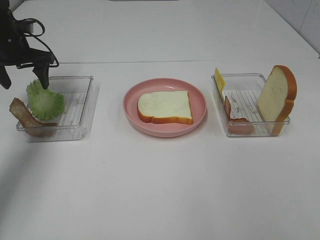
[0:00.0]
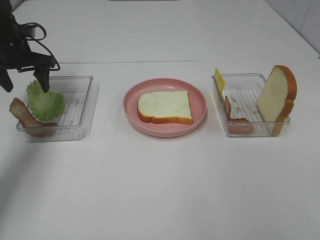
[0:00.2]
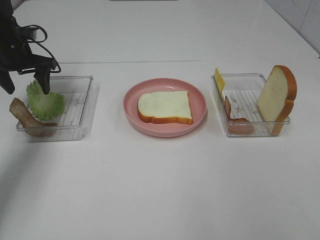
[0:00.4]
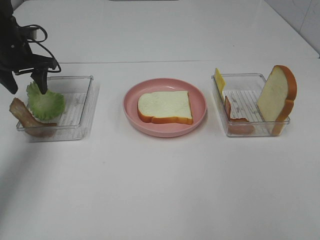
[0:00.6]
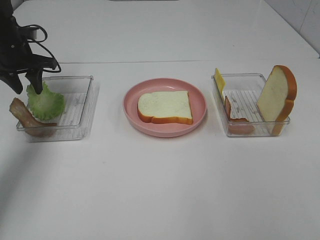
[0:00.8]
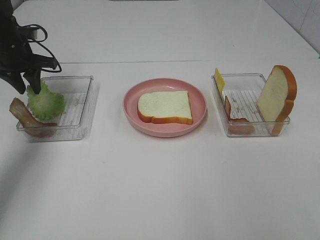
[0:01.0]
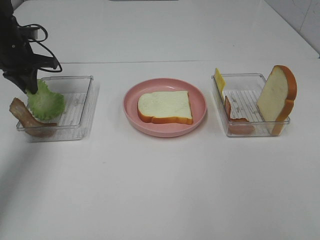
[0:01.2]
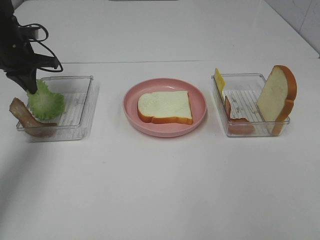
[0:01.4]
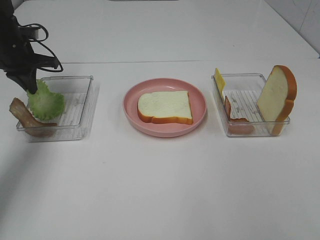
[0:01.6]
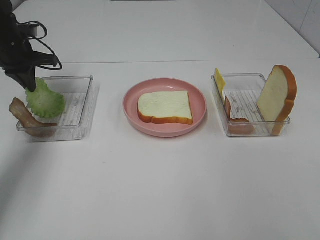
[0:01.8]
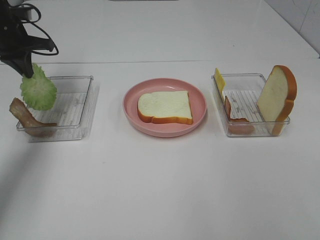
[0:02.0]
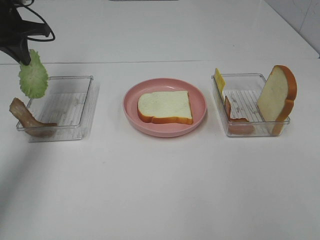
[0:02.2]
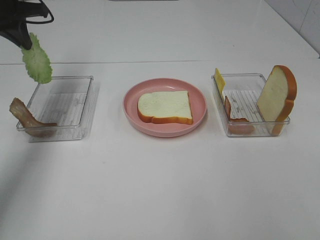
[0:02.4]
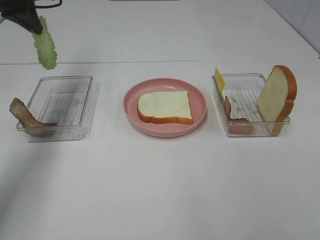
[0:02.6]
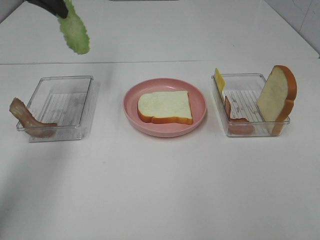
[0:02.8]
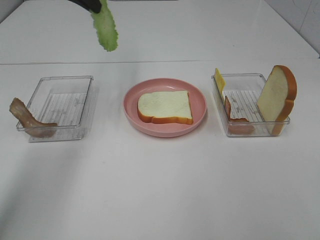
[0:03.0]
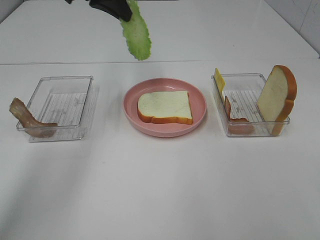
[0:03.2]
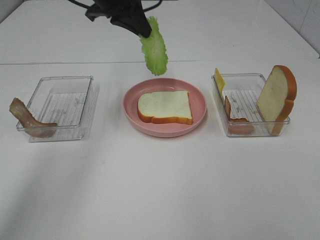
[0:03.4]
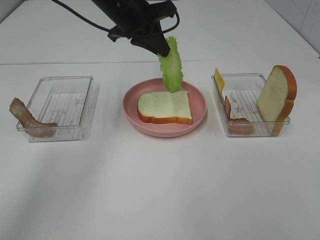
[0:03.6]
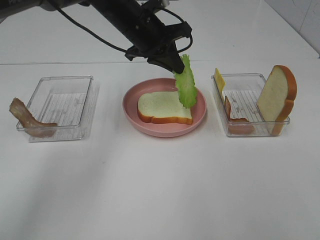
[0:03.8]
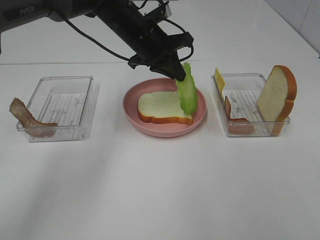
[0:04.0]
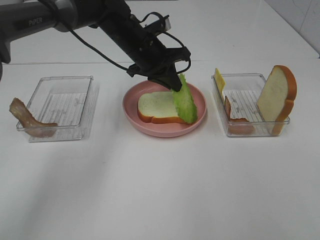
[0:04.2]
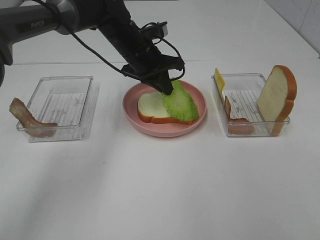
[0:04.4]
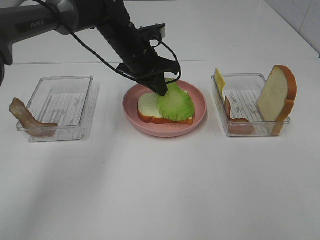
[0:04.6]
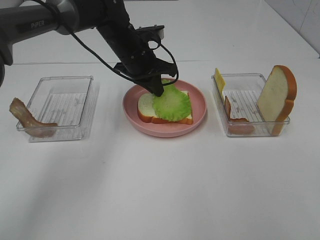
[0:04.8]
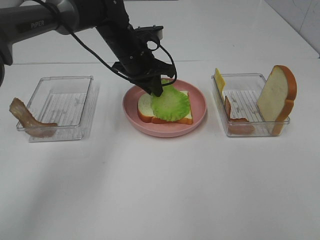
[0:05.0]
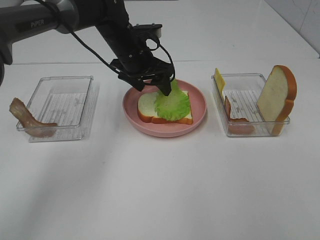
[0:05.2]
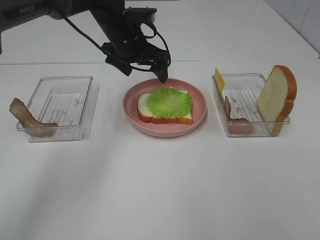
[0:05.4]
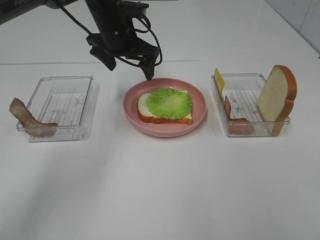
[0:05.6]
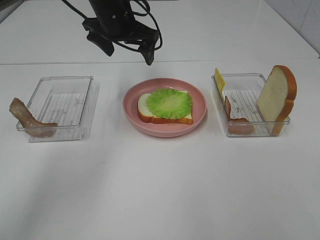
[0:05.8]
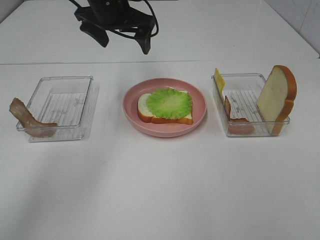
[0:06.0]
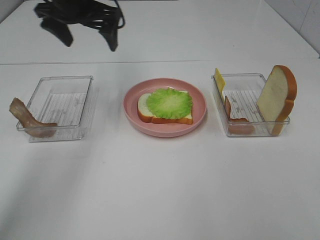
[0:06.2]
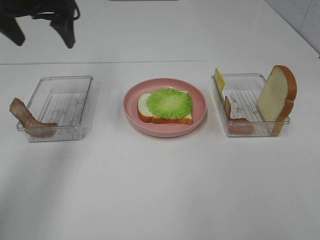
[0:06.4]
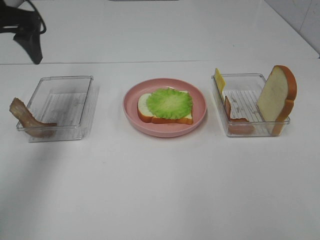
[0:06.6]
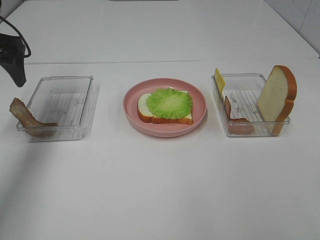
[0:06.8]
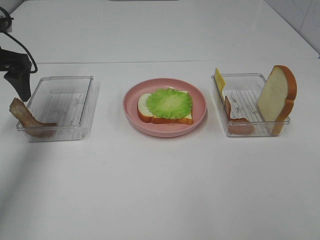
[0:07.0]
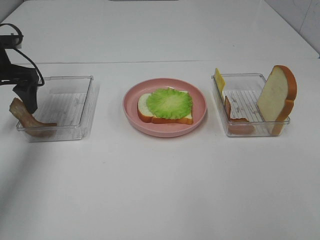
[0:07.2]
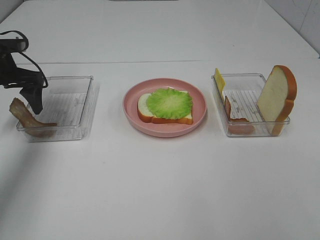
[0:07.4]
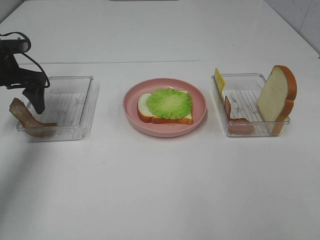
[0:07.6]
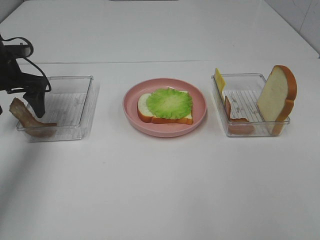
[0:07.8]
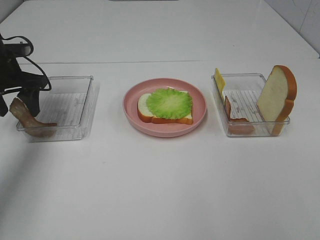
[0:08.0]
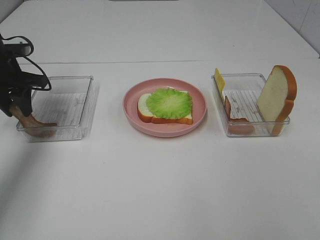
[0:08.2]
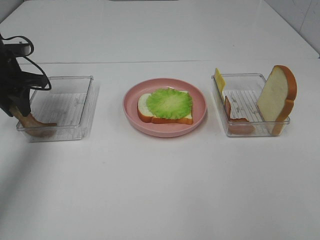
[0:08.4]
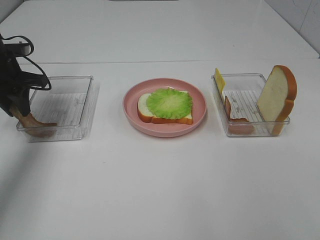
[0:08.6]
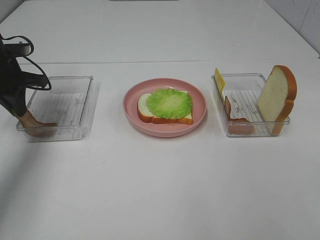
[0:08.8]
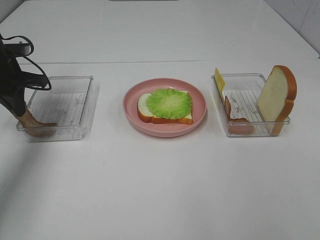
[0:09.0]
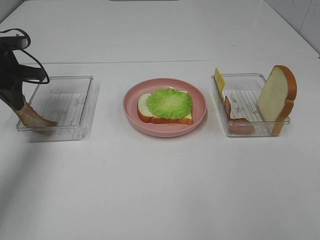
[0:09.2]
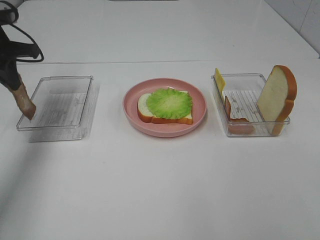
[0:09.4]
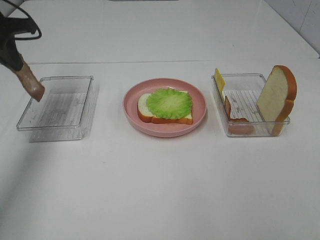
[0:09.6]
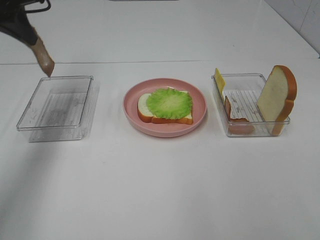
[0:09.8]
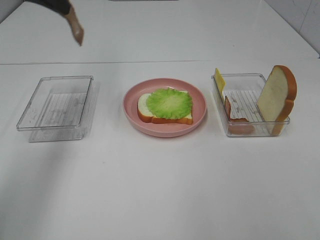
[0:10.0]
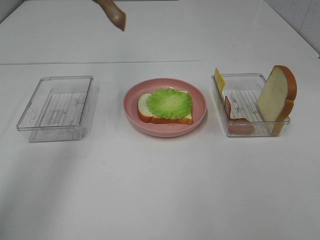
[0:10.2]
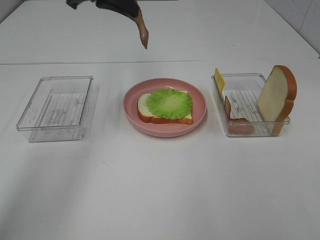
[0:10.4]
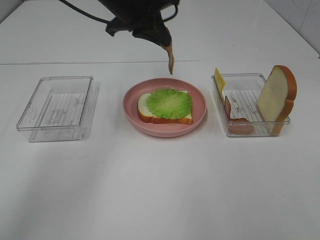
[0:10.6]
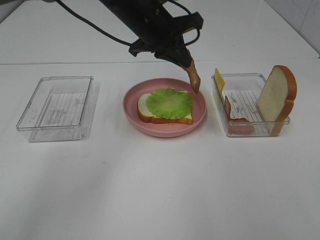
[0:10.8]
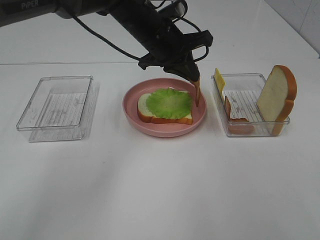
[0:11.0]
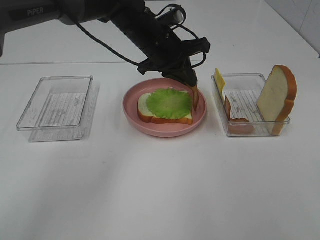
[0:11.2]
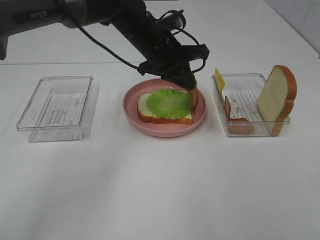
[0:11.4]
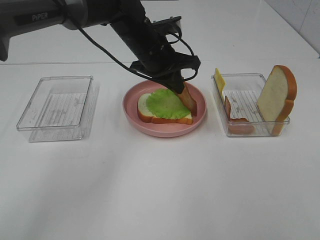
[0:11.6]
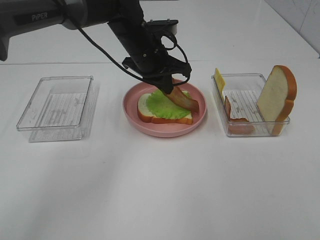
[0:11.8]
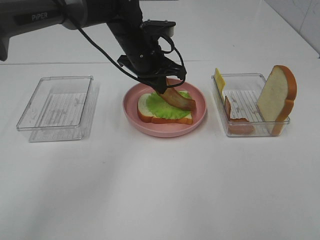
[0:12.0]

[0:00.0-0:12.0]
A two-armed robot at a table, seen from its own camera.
Task of the whole recording: Make sandwiches.
Step, 0:01.8 to 0:05.4: Left hand:place the lettuce slice on the bread slice.
Step, 0:05.6 to 0:09.2: Left hand:grab the bacon.
0:00.0 to 0:01.6: The left gripper closes its fingers.
0:01.6 to 0:03.0: The left gripper heads upward and to the right, covering some 20 cm.
0:03.0 to 0:04.4: The left gripper is displaced downward and to the right by approximately 20 cm.
0:04.4 to 0:06.0: The left gripper goes about 10 cm upward and to the left, and opens up.
0:06.0 to 0:07.6: The left gripper shifts roughly 25 cm to the left and downward.
0:07.6 to 0:09.0: The left gripper closes up.
0:09.0 to 0:10.4: The left gripper goes roughly 25 cm to the right and upward.
0:10.4 to 0:12.0: The left gripper shifts about 15 cm downward and to the right.

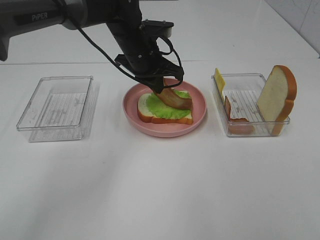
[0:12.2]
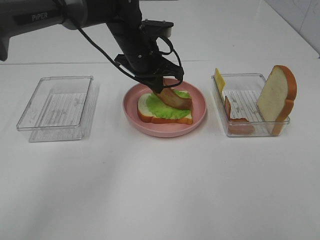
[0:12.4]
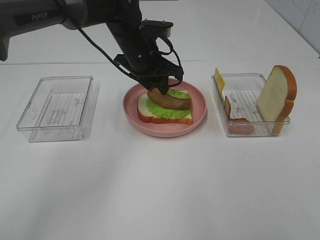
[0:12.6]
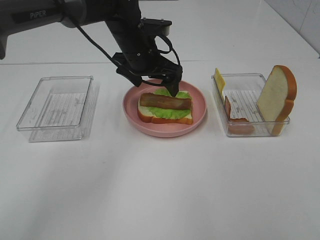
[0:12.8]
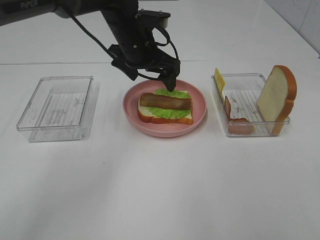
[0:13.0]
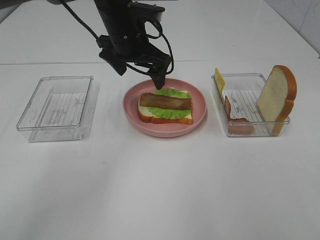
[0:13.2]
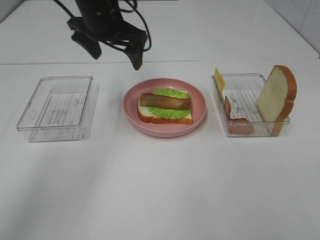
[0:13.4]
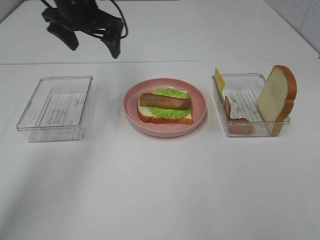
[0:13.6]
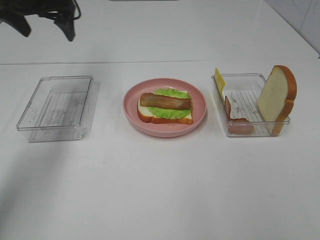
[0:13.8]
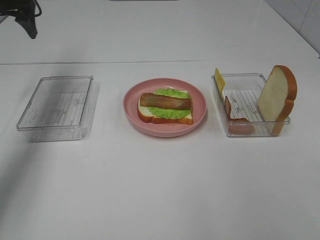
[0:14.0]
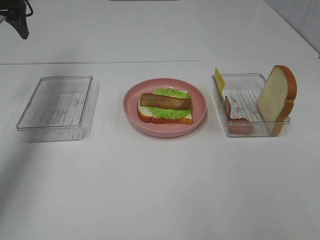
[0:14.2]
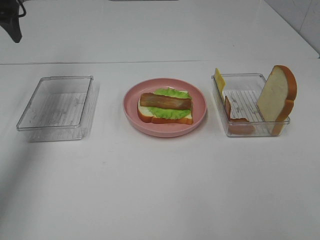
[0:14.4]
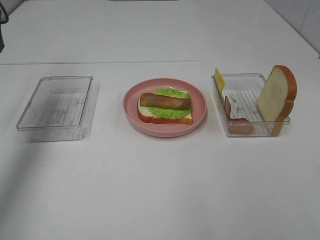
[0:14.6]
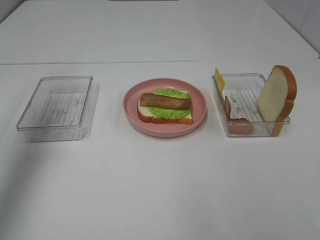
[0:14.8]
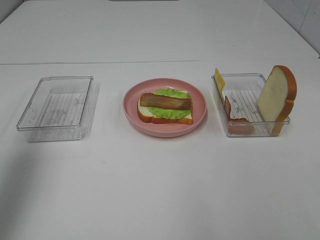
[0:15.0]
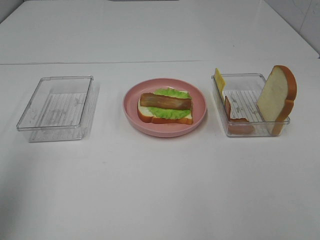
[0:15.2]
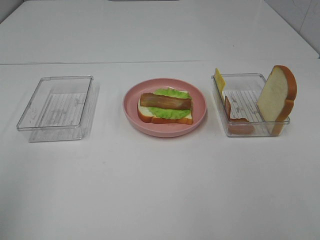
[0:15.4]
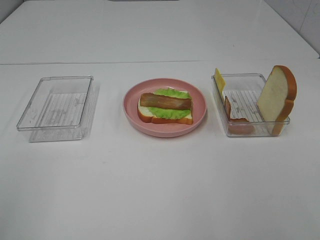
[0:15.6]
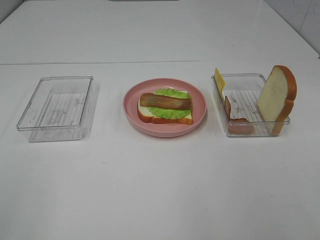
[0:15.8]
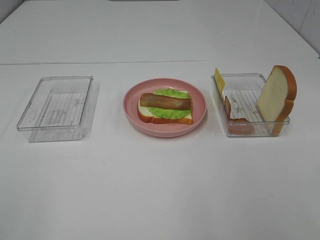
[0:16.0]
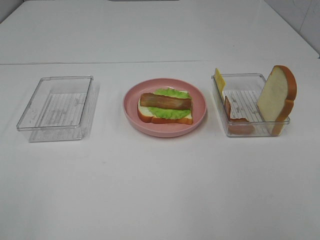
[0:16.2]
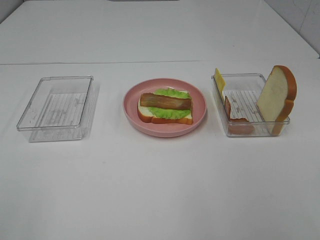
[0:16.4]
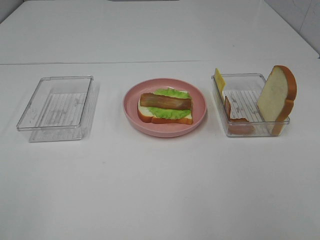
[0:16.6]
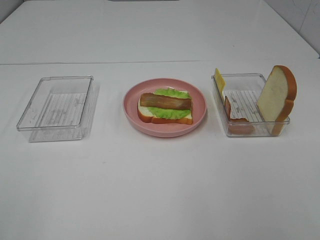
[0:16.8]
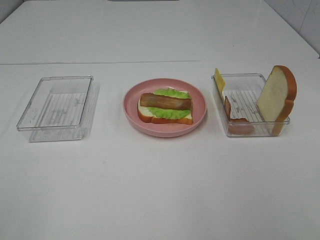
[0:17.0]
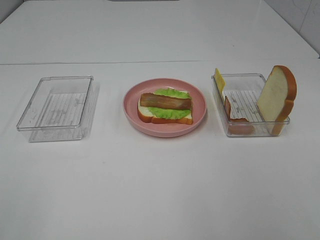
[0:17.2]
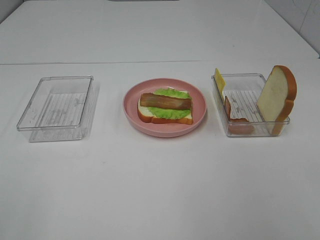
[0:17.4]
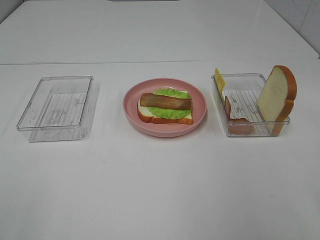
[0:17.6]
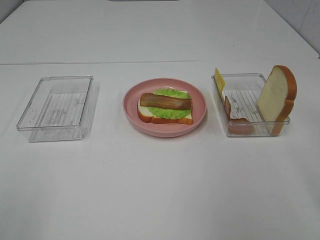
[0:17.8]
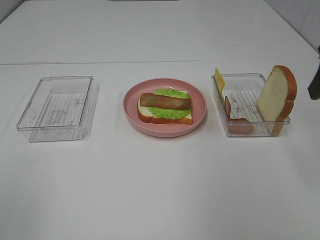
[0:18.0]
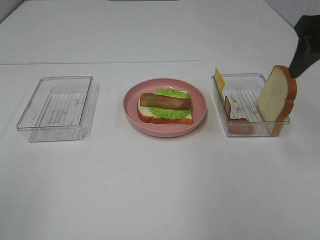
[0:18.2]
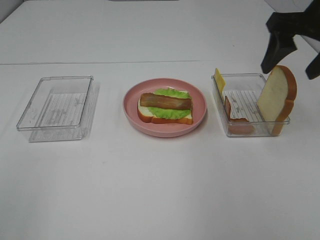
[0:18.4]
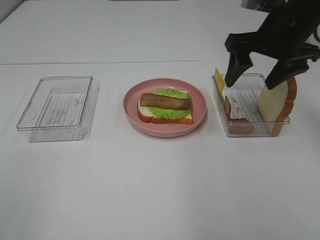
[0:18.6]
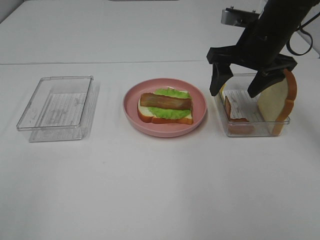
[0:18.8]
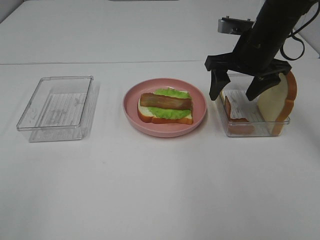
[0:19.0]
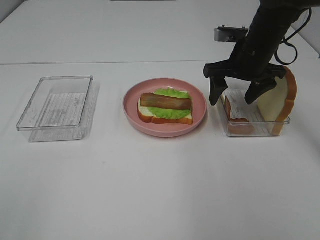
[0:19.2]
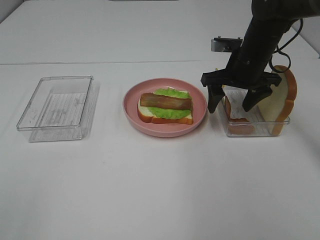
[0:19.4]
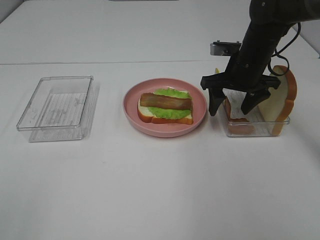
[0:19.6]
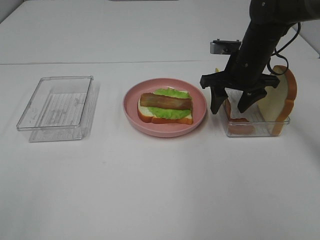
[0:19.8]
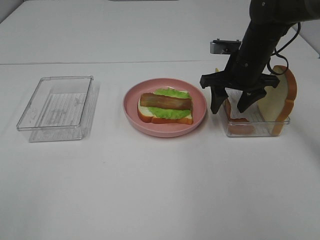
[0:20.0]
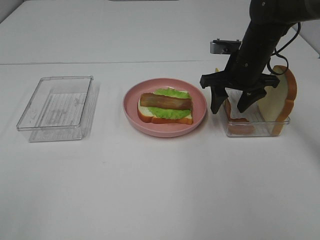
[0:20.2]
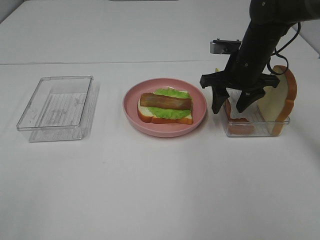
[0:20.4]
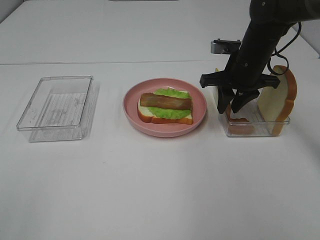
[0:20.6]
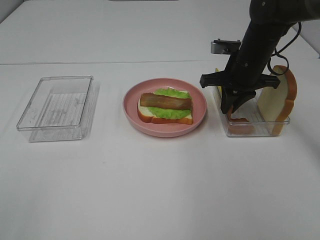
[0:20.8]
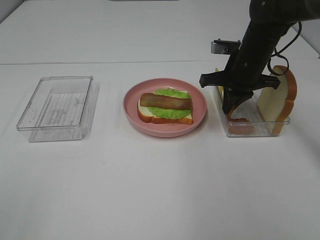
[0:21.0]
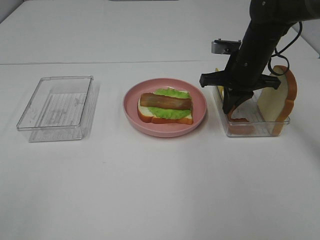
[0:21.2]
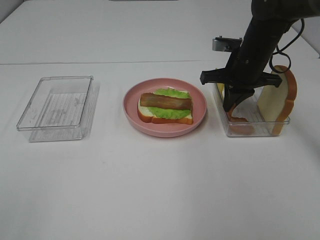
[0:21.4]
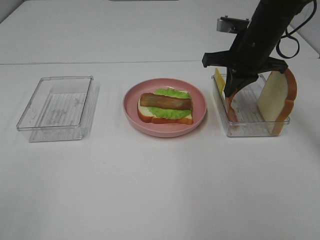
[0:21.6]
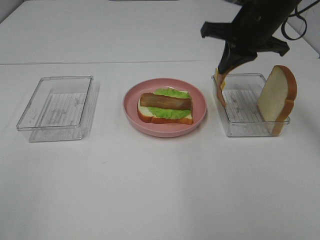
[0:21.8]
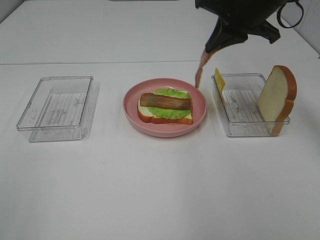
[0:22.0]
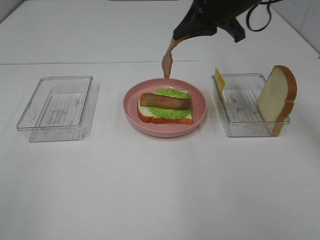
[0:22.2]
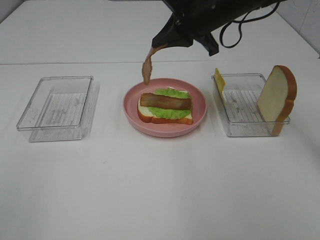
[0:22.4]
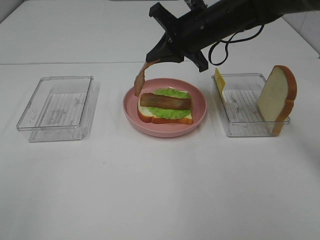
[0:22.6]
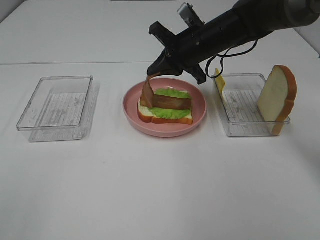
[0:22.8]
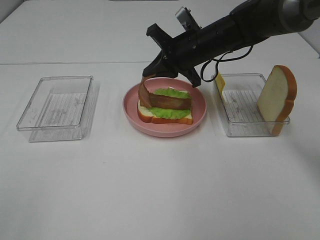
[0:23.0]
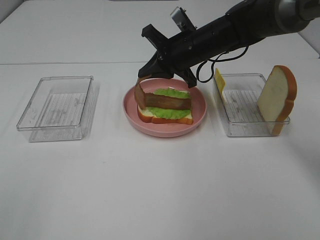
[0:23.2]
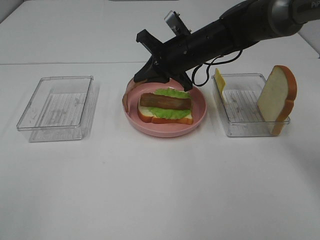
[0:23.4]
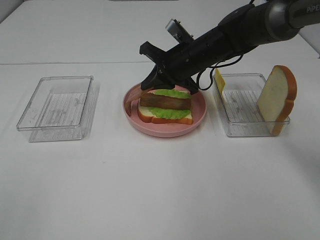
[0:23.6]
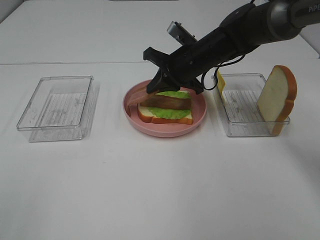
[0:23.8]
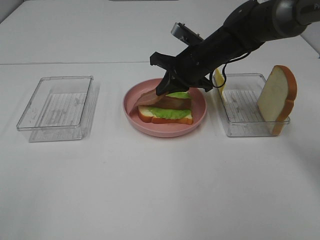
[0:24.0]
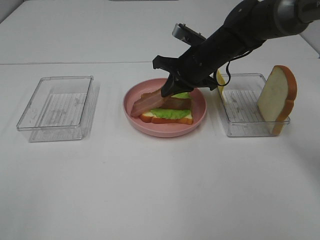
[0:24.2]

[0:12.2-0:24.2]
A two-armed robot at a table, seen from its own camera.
Task of the whole recording: Make sandwiches.
Step, 0:13.0 to 0:21.4: Right hand:grab the bacon.
0:12.2 to 0:13.8: The left gripper goes roughly 25 cm to the left and upward, and opens its fingers.
0:13.8 to 0:15.2: The left gripper is displaced backward by about 35 cm.
0:15.2 to 0:16.6: The left gripper is displaced backward by roughly 15 cm.
0:16.6 to 0:18.2: The right gripper moves forward, roughly 30 cm.
0:18.2 to 0:19.8: The right gripper is displaced downward, forward and to the left by approximately 20 cm.
0:19.8 to 0:21.2: The right gripper closes its fingers.
0:21.2 to 0:22.6: The right gripper goes roughly 10 cm to the left.
0:22.6 to 0:24.2: The right gripper is displaced downward by approximately 5 cm.
